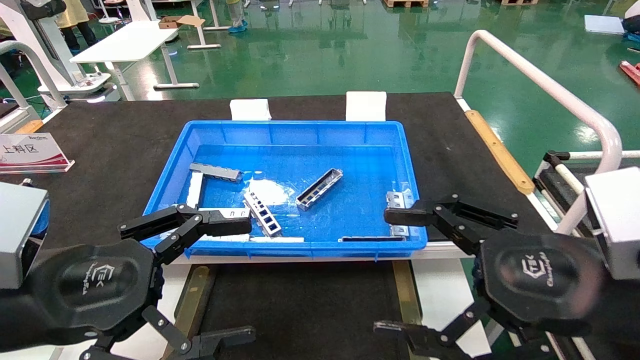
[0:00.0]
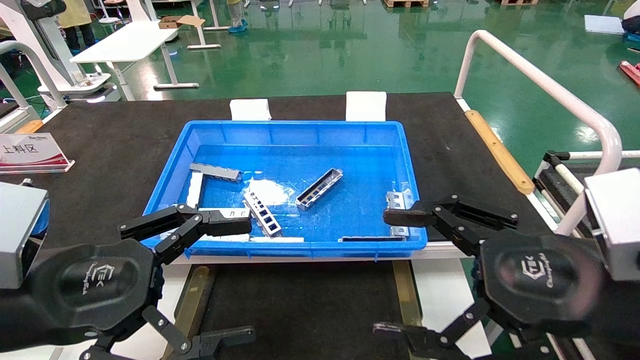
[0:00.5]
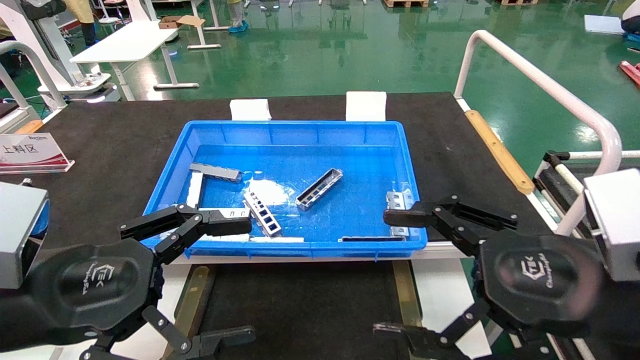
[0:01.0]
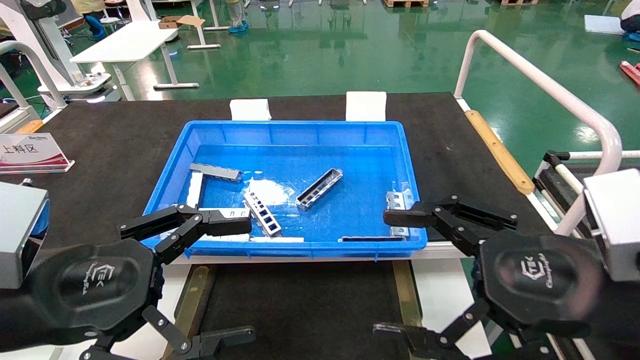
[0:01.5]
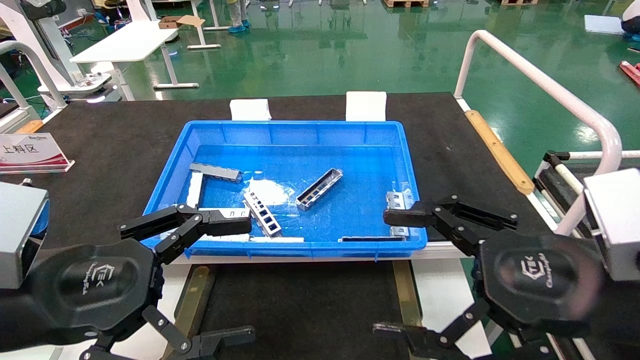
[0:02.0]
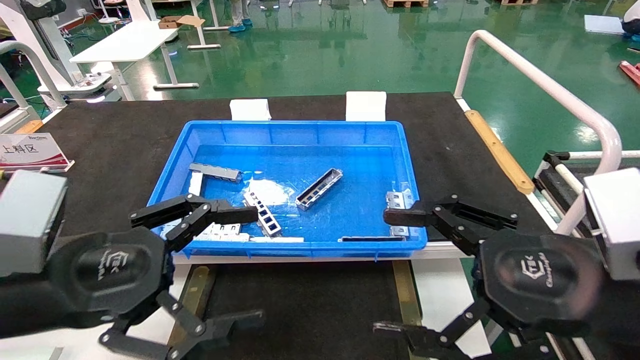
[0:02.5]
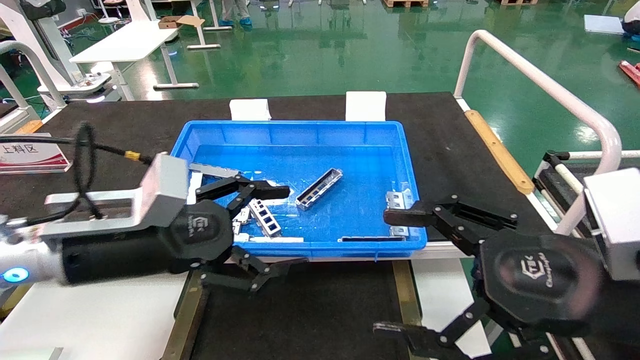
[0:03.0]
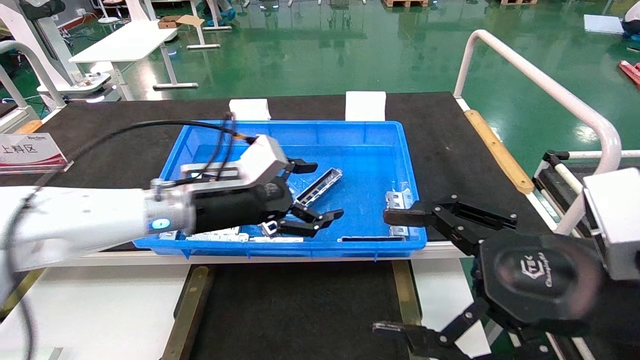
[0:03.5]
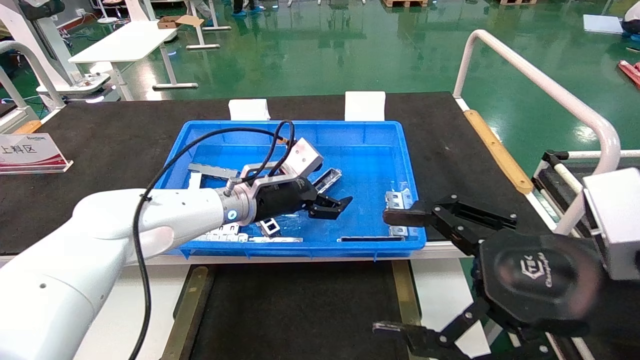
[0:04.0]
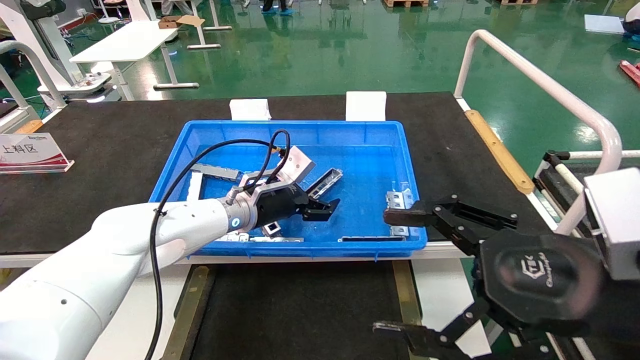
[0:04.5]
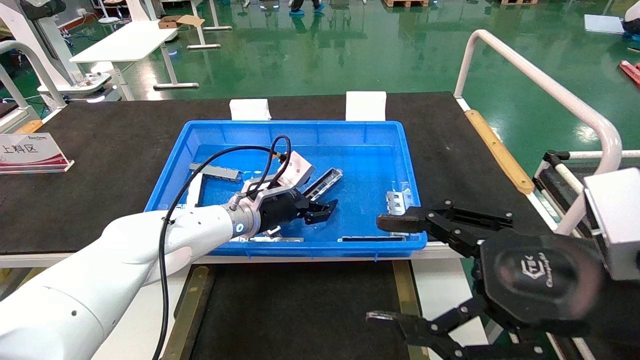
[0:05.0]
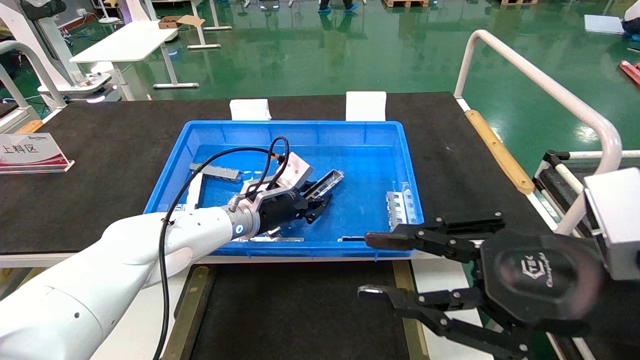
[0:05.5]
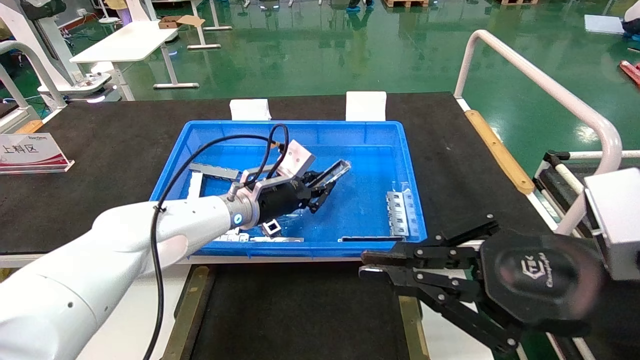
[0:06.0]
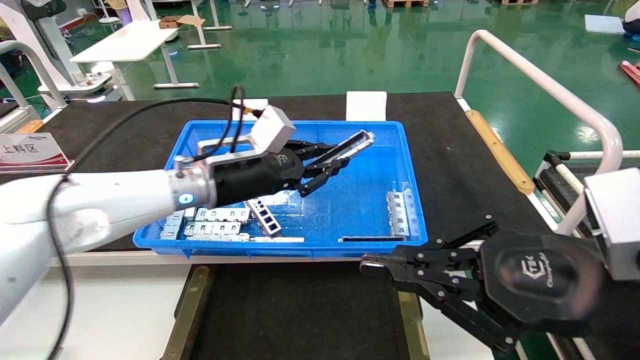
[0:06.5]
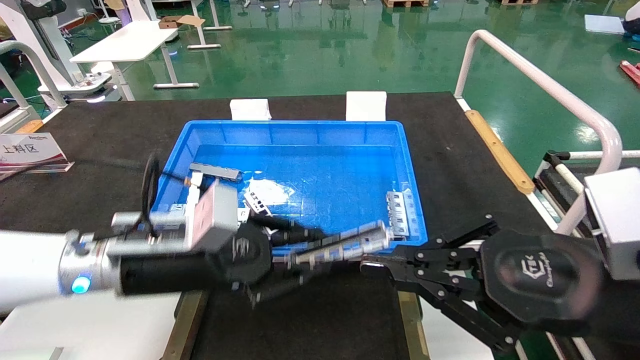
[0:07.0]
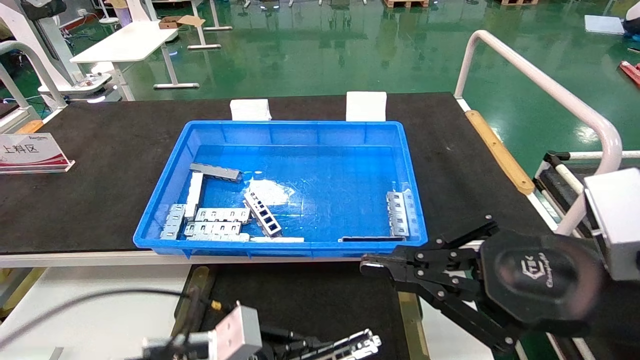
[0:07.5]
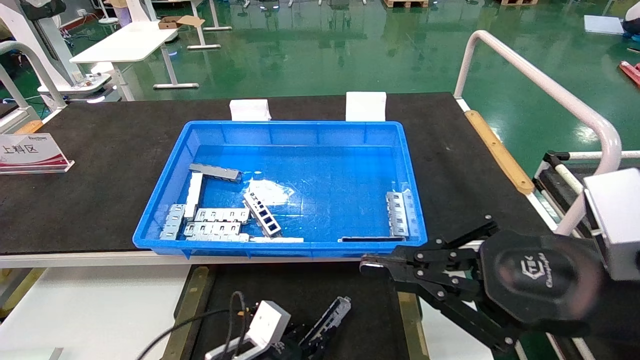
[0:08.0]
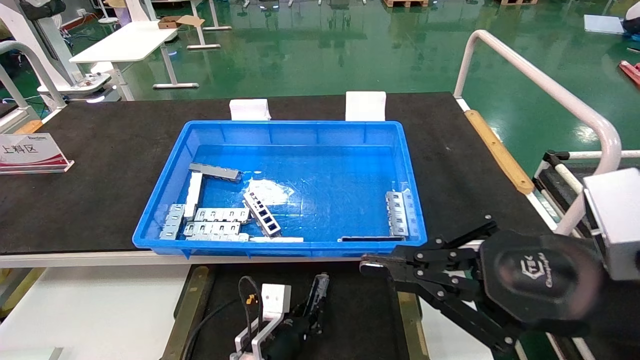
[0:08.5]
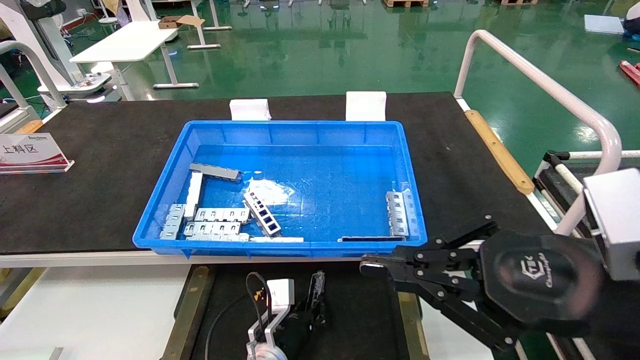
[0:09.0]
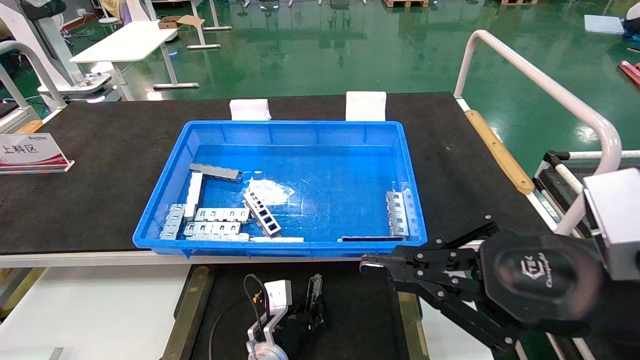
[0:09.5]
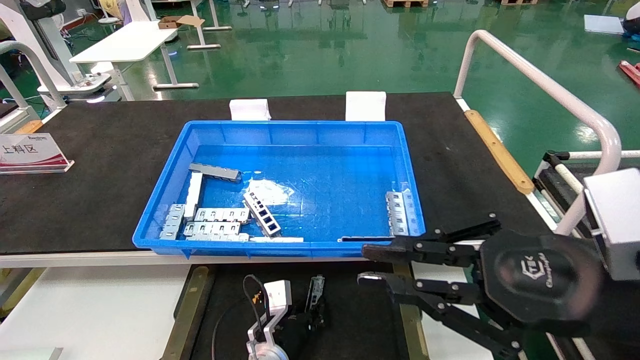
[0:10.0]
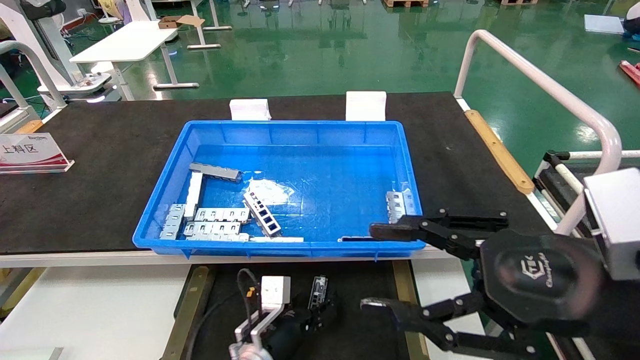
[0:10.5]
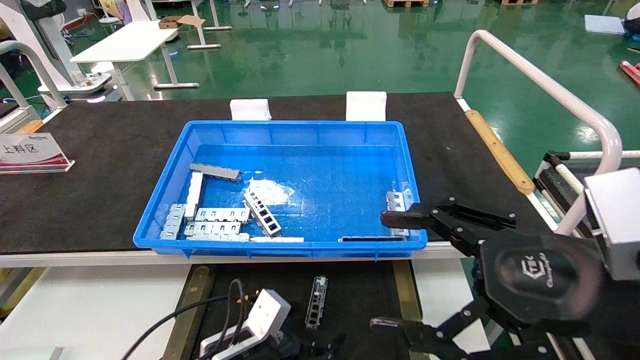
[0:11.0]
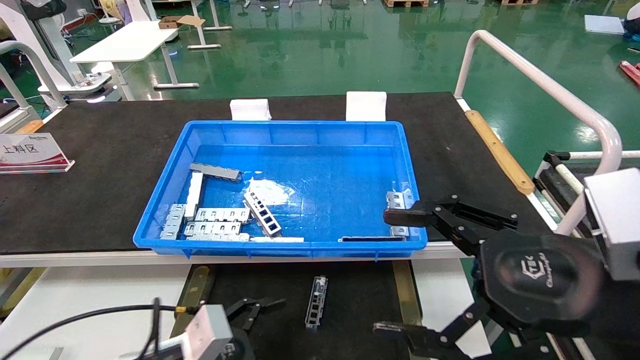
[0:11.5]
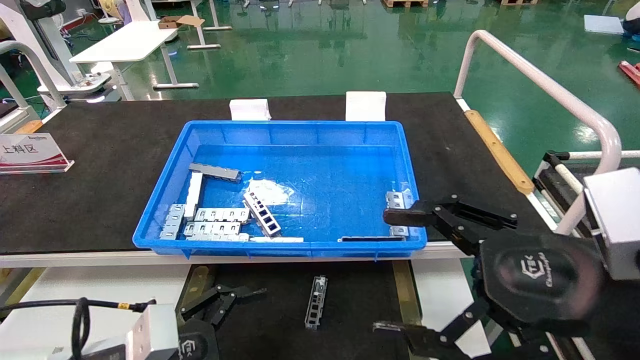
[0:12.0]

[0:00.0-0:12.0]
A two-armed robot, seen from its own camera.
Task of the whole recording: Grasp the part with one hand and place it on the black container.
Step, 0:03.0 to 0:05.5: Pick up the front USB bracket from the feeding area.
Step, 0:06.0 to 0:10.0: Place the front USB bracket into the box.
0:00.0 to 0:02.0: Neither gripper changes place.
0:02.0 to 0:04.0: The left gripper shifts some 30 cm forward and to the right.
0:04.0 to 0:06.0: The left gripper closes up; the right gripper closes its fingers.
0:06.0 to 0:08.0: The left gripper is displaced downward and backward by about 25 cm.
0:08.0 to 0:10.0: The left gripper travels forward and to the right by roughly 10 cm.
0:10.0 to 0:12.0: The left gripper is displaced to the left, backward and upward by approximately 25 cm, and opens up. Meanwhile the right gripper opens up.

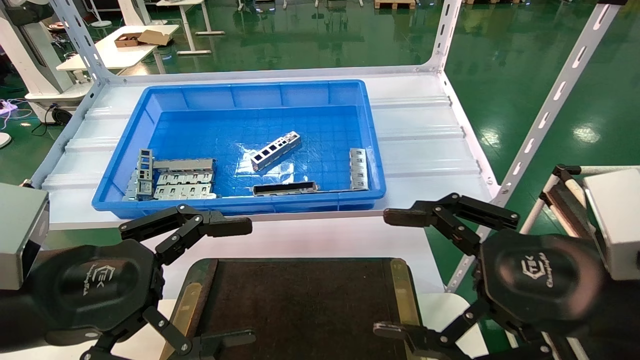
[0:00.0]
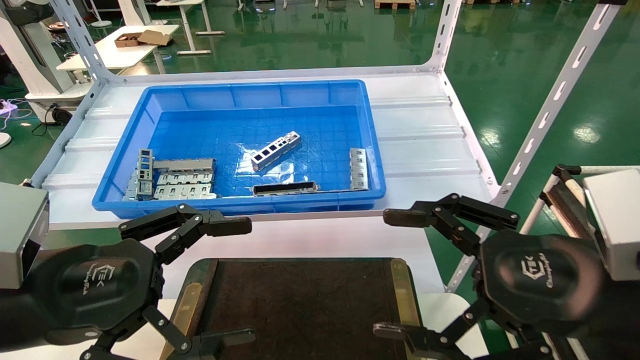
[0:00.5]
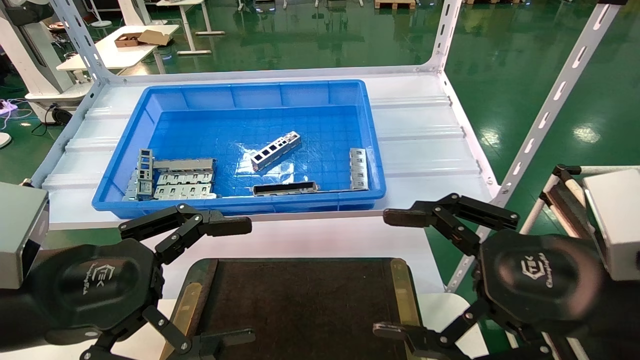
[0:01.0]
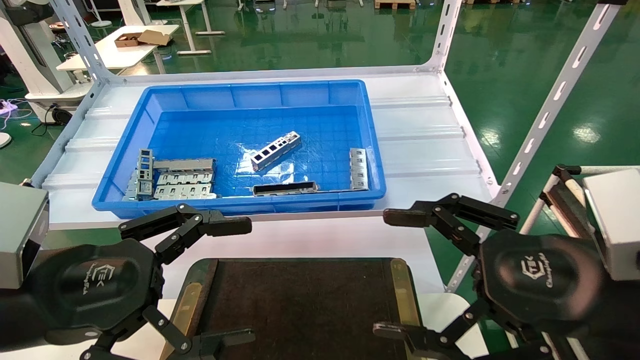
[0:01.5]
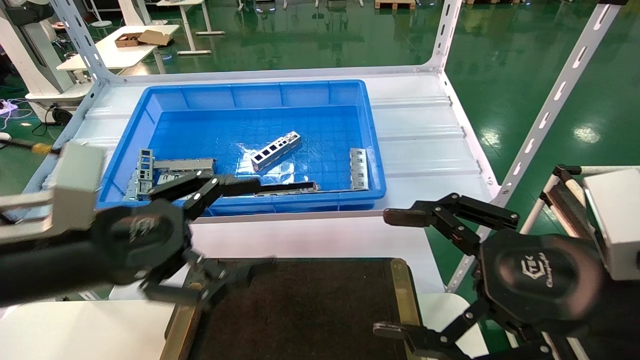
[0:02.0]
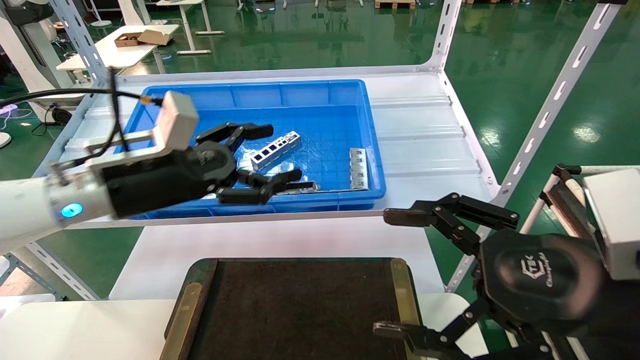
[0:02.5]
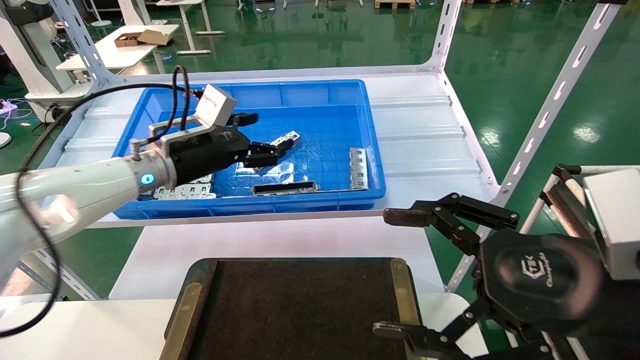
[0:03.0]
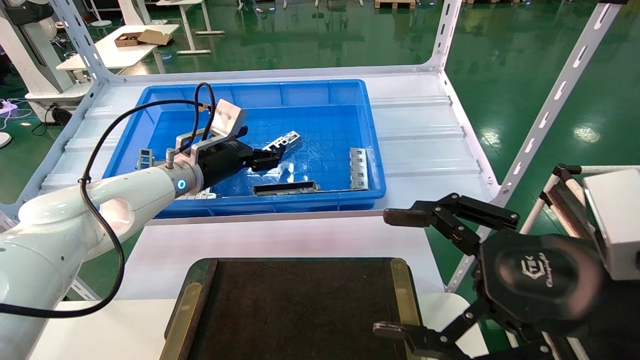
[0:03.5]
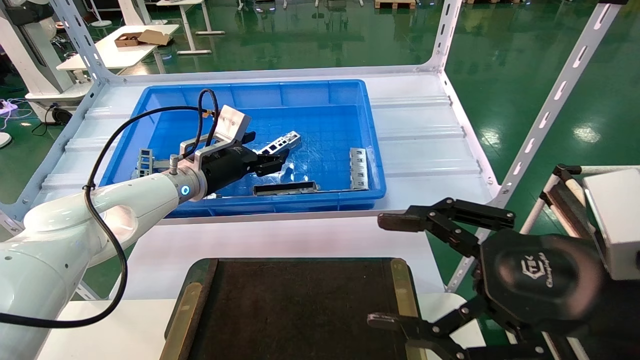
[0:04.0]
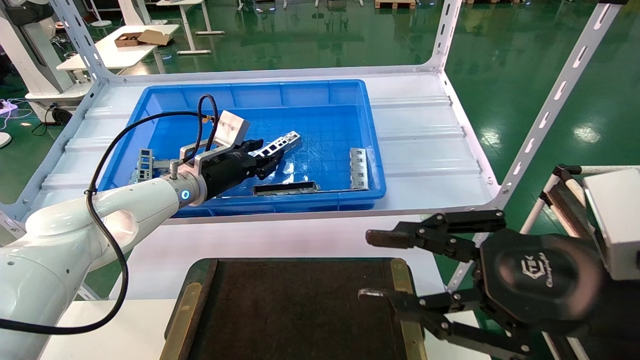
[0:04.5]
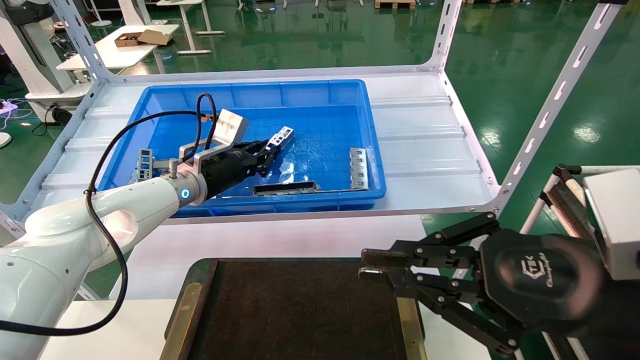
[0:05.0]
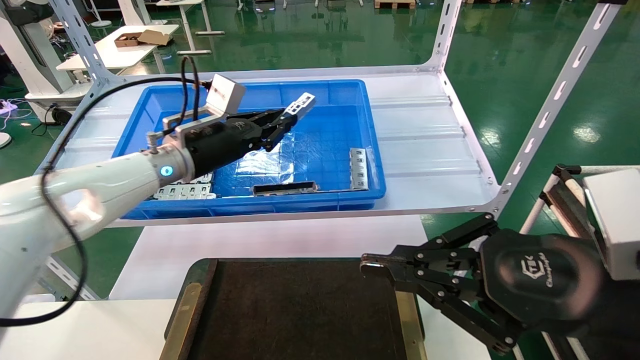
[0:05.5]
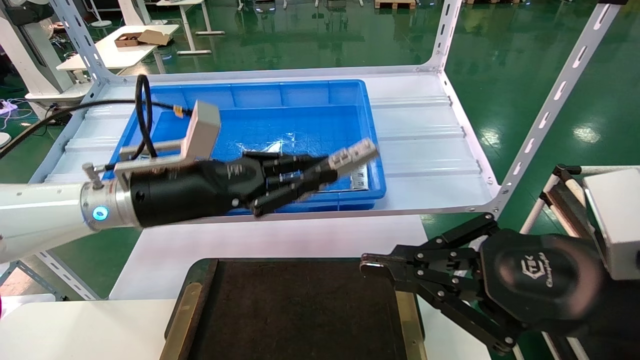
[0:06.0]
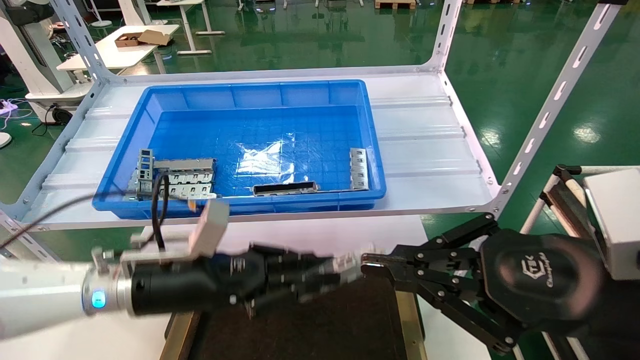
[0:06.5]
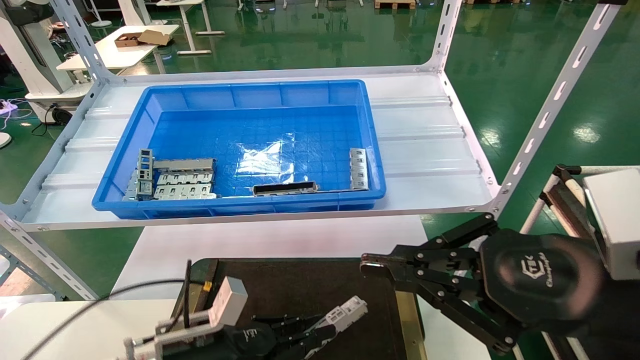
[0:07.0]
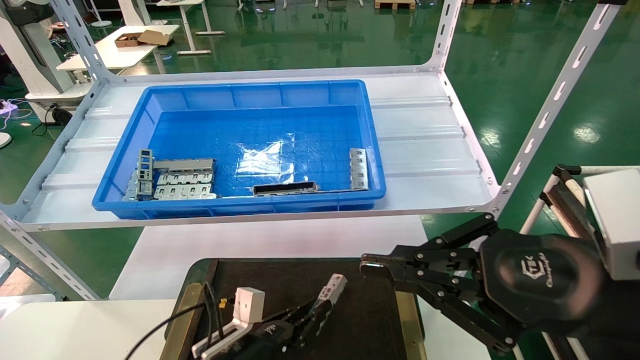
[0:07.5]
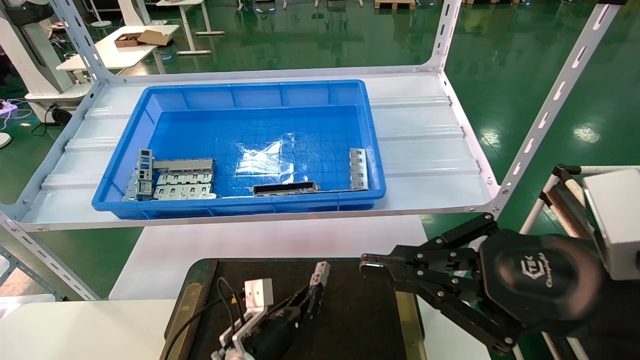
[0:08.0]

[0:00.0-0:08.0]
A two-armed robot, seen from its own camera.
Task of the whole recording: Grasp the part with one hand and place it on the black container.
Step, 0:02.0 to 0:05.5: Pick up the front USB bracket from the feeding area.
0:00.0 to 0:02.0: The left gripper travels forward by about 5 cm.
0:02.0 to 0:04.0: The left gripper goes some 25 cm forward.
0:04.0 to 0:06.0: The right gripper closes. Meanwhile the left gripper shifts approximately 15 cm backward, and closes its fingers.
0:06.0 to 0:08.0: The left gripper is displaced downward by some 30 cm.
